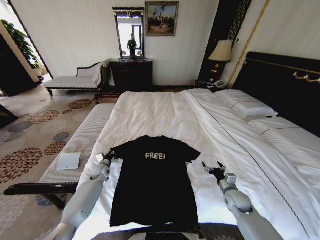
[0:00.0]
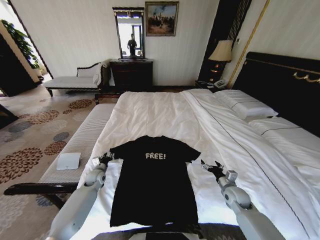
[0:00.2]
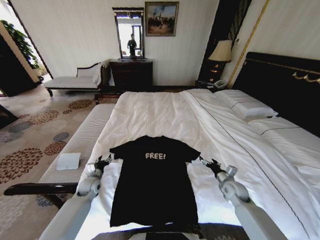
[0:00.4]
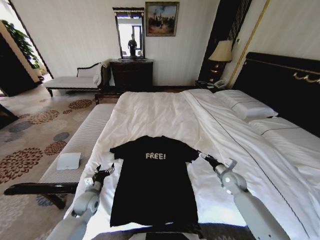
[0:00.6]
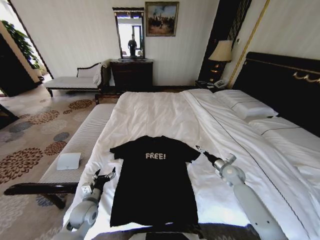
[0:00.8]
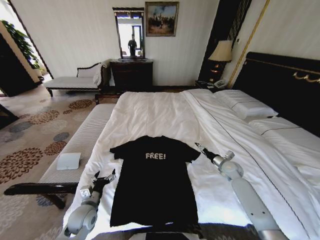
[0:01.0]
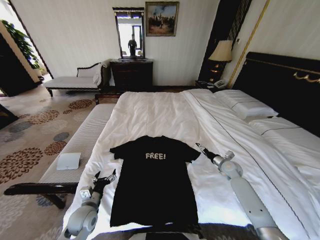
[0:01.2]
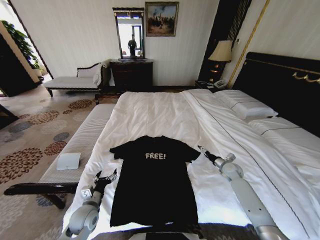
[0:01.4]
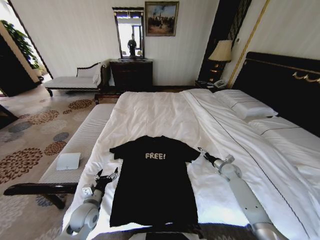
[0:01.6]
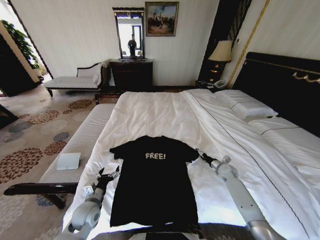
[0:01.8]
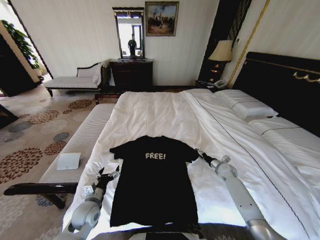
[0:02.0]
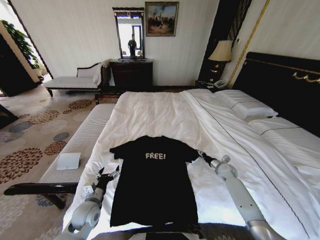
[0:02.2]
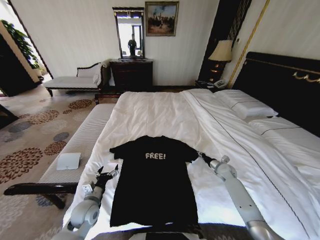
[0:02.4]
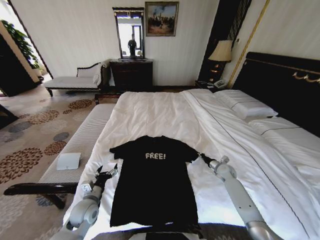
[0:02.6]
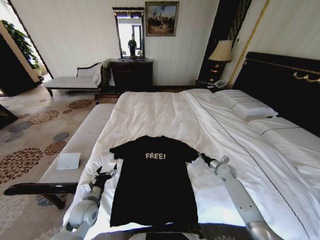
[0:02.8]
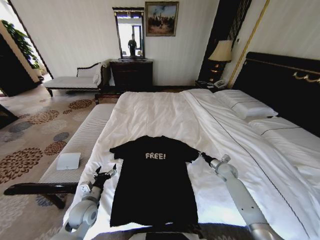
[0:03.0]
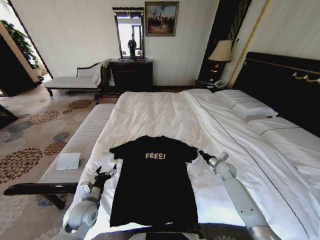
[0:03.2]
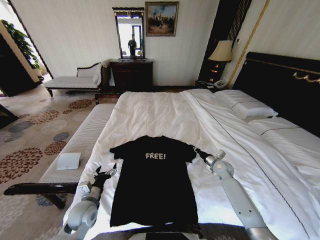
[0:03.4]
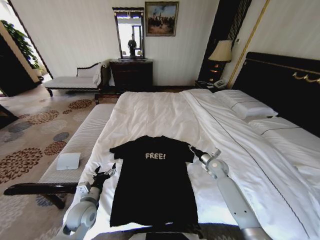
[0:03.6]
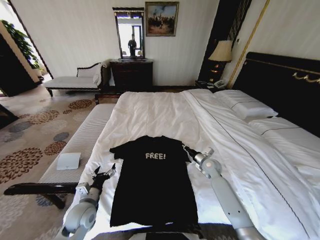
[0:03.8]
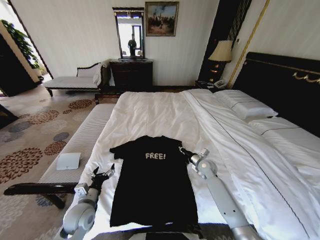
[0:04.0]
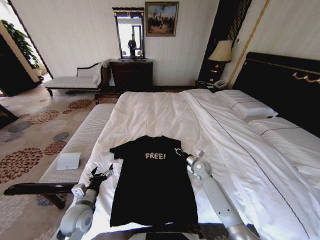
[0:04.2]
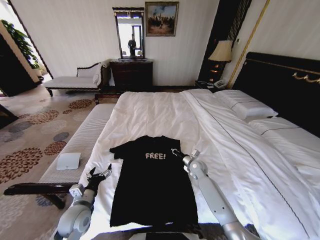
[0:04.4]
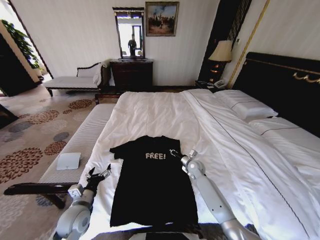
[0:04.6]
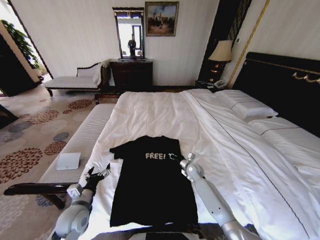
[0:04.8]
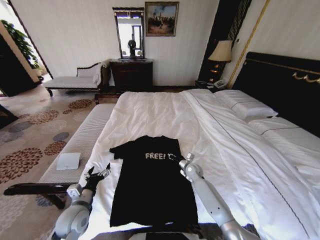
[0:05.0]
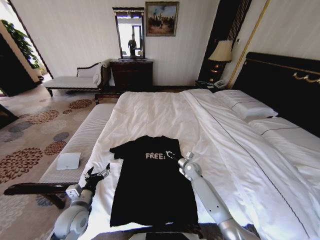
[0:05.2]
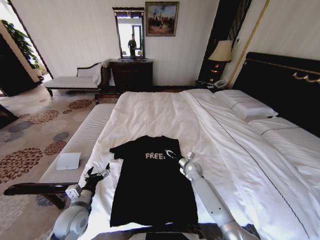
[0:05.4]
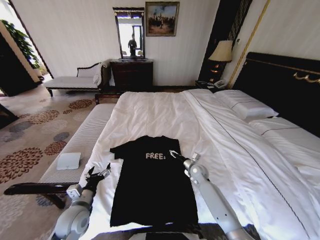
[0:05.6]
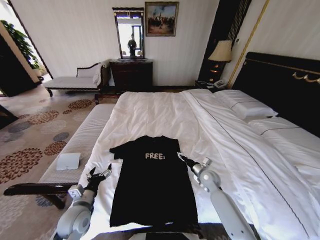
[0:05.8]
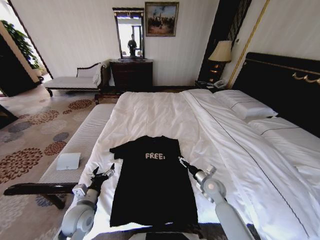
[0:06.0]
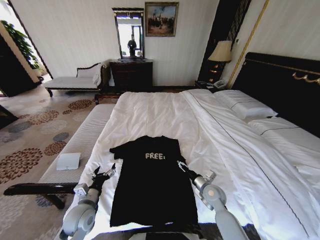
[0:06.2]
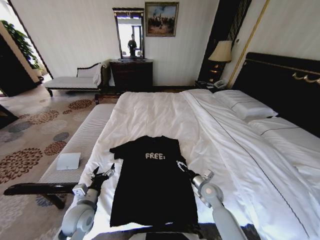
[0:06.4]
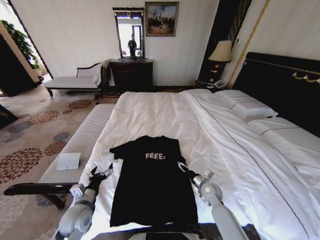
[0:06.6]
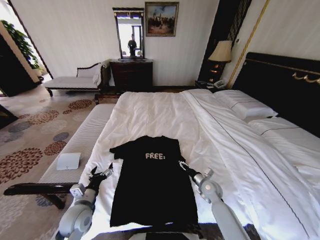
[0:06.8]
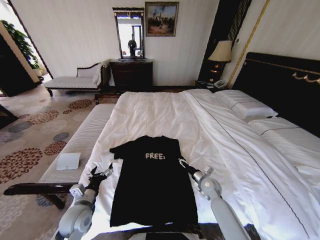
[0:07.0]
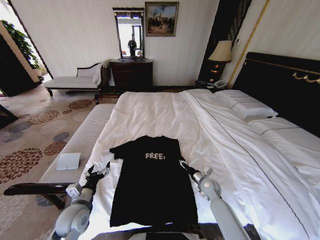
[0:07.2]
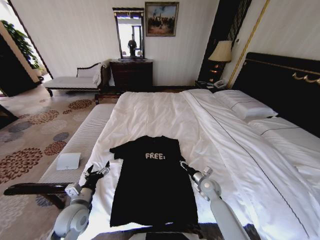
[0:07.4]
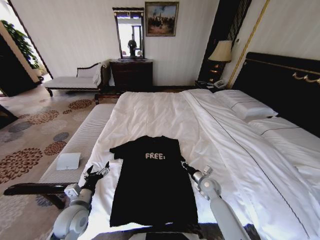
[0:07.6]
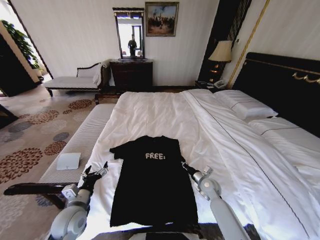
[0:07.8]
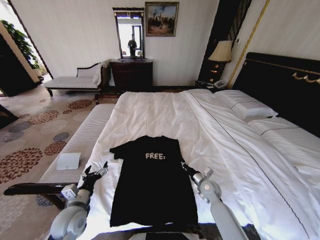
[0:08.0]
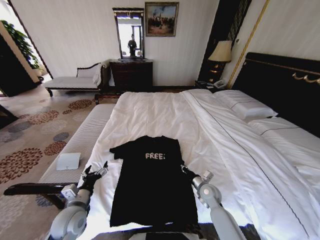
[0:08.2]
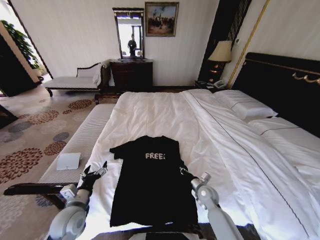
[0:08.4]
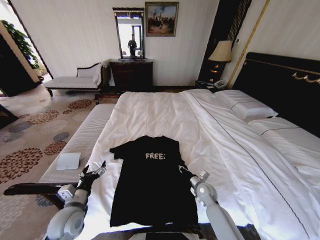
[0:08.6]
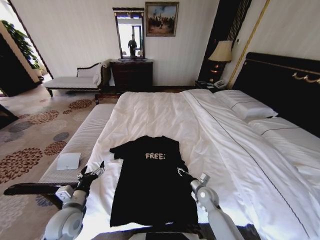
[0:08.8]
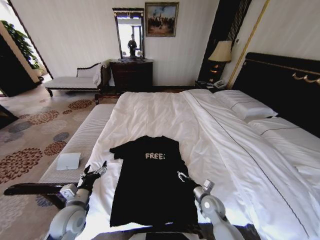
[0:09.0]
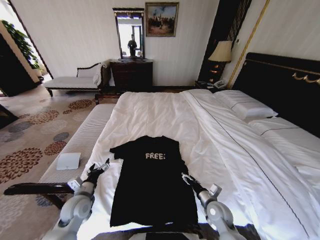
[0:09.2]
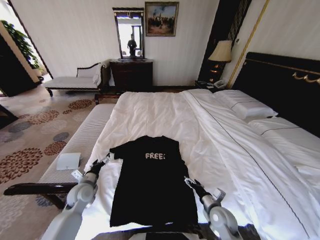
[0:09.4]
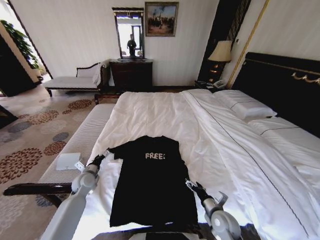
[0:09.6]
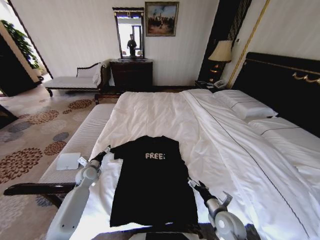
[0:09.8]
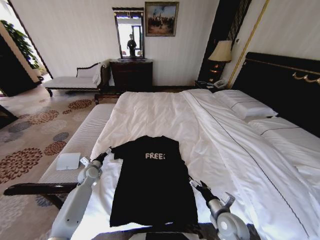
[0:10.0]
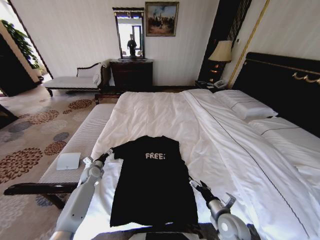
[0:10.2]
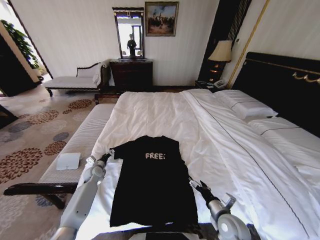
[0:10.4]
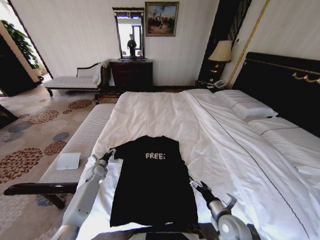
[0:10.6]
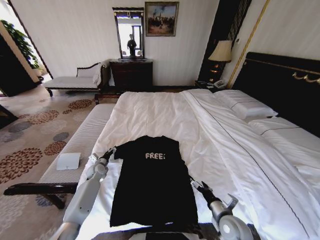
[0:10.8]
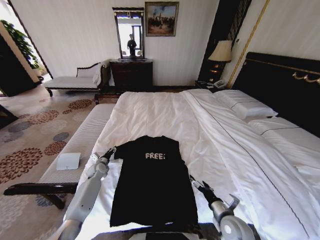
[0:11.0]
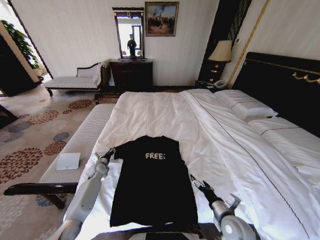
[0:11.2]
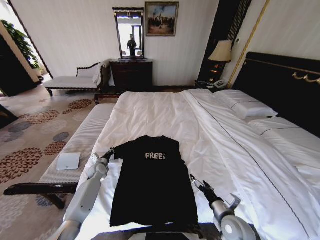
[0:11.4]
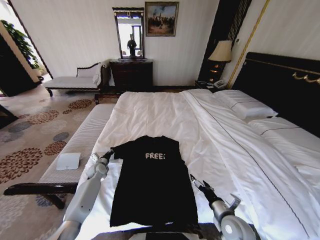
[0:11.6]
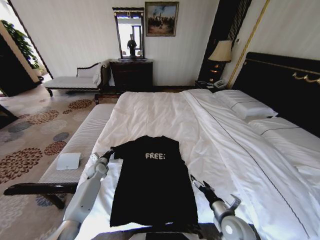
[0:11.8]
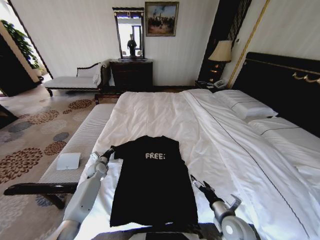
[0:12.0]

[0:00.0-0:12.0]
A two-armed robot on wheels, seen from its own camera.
Task of the whole recording: Fold the clothes on the bed.
0:00.0 to 0:01.6: The right gripper shifts about 15 cm forward and to the right; the left gripper travels backward by roughly 20 cm, and opens.
0:01.6 to 0:03.0: The right gripper closes.
0:03.0 to 0:04.4: The right gripper goes approximately 15 cm to the left.
0:04.4 to 0:06.0: The right gripper goes approximately 10 cm backward, and opens its fingers.
0:06.0 to 0:07.6: The right gripper closes.
0:07.6 to 0:09.0: The right gripper goes roughly 10 cm backward, and opens up.
0:09.0 to 0:10.4: The right gripper goes approximately 10 cm backward and upward, and opens up. The left gripper moves forward and downward, approximately 25 cm.
0:10.4 to 0:12.0: The left gripper closes its fingers.

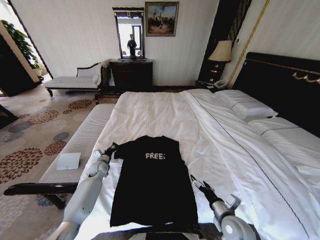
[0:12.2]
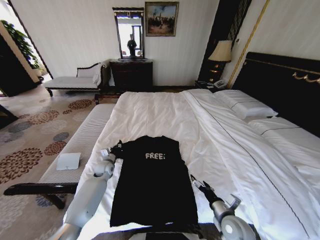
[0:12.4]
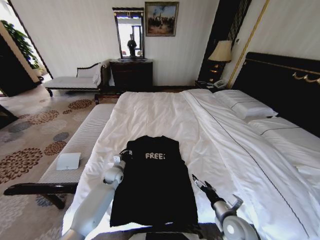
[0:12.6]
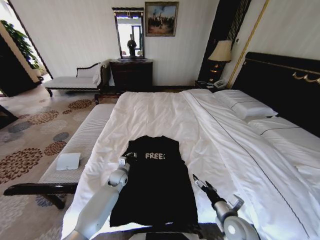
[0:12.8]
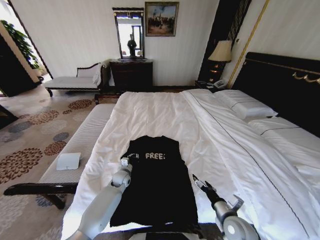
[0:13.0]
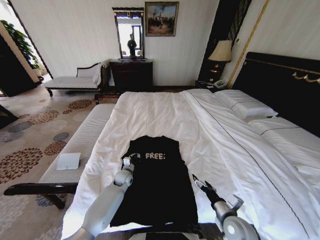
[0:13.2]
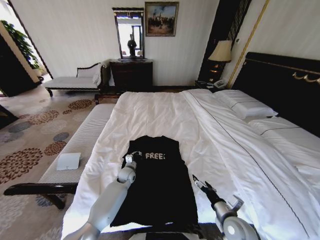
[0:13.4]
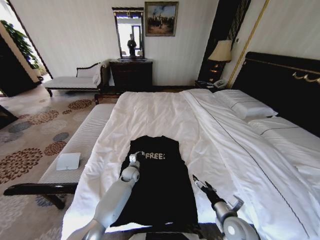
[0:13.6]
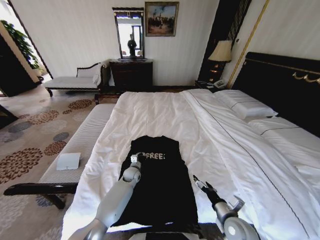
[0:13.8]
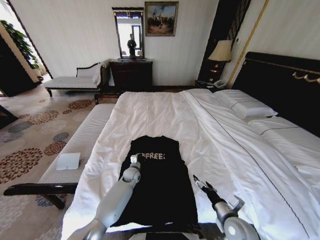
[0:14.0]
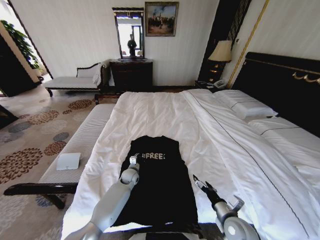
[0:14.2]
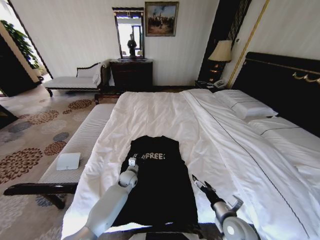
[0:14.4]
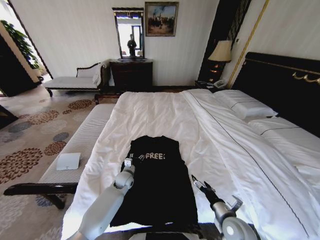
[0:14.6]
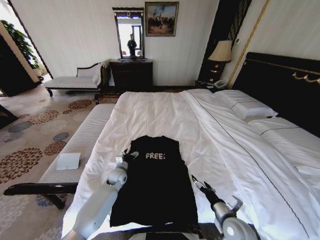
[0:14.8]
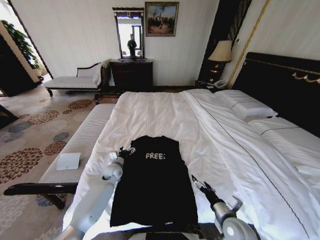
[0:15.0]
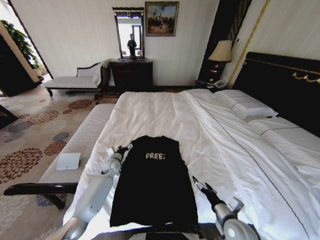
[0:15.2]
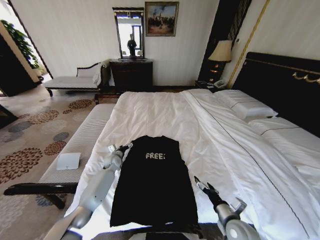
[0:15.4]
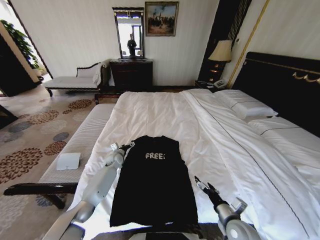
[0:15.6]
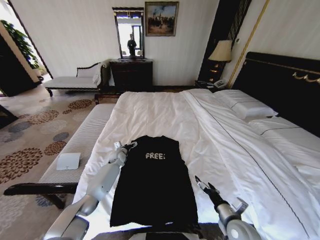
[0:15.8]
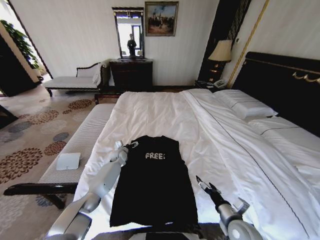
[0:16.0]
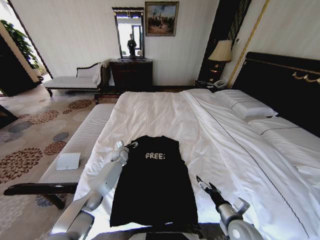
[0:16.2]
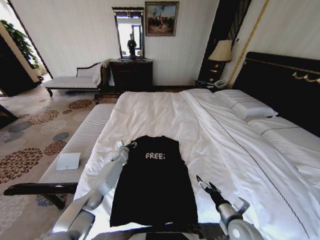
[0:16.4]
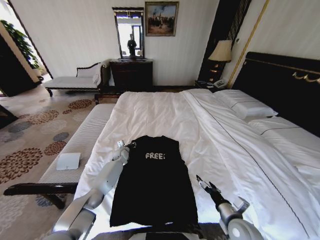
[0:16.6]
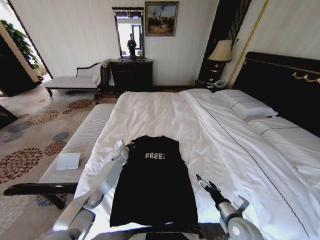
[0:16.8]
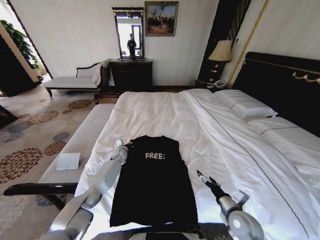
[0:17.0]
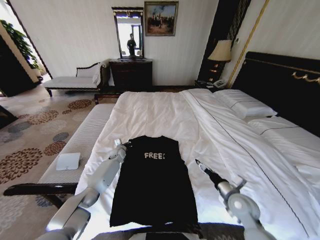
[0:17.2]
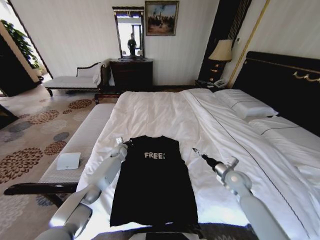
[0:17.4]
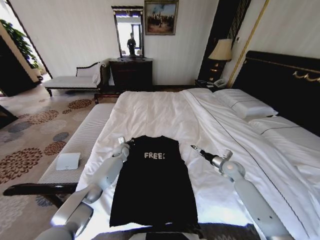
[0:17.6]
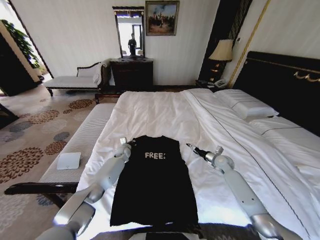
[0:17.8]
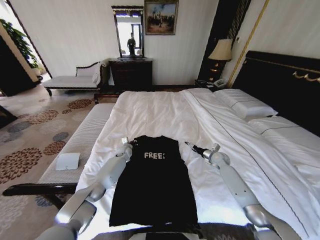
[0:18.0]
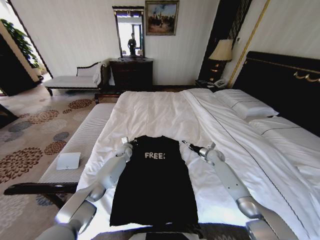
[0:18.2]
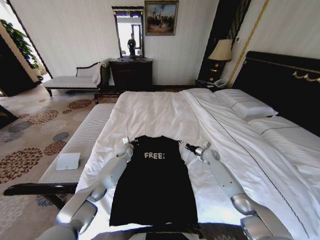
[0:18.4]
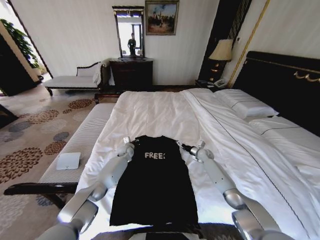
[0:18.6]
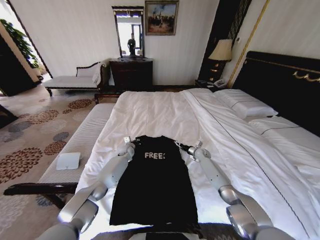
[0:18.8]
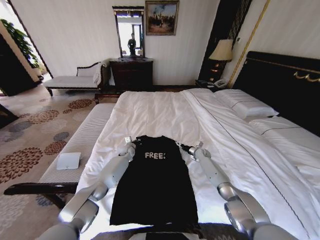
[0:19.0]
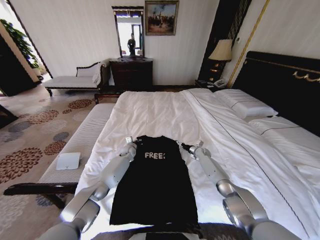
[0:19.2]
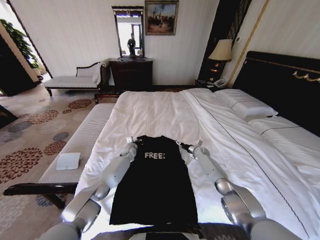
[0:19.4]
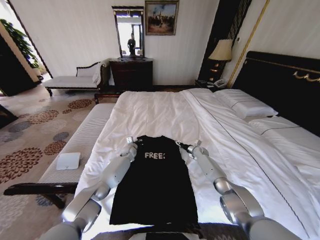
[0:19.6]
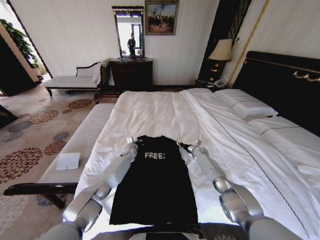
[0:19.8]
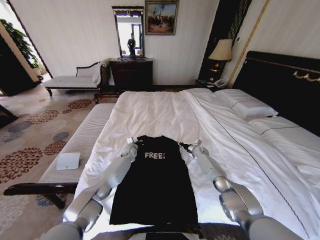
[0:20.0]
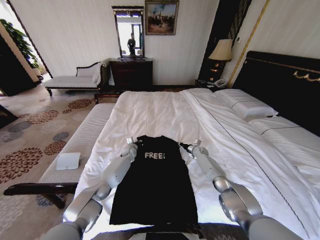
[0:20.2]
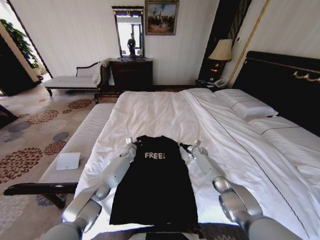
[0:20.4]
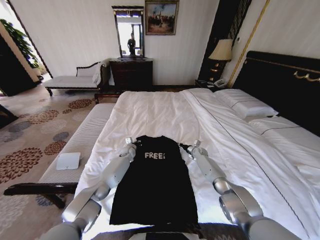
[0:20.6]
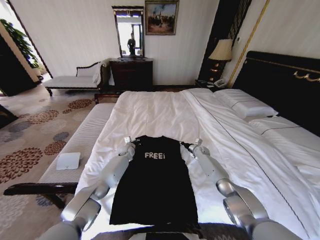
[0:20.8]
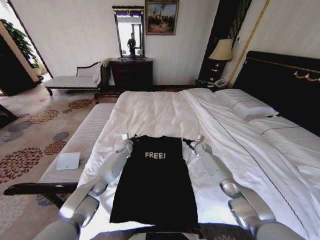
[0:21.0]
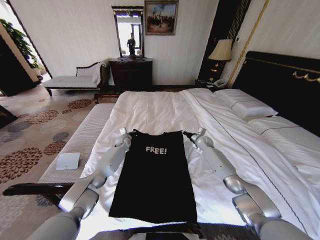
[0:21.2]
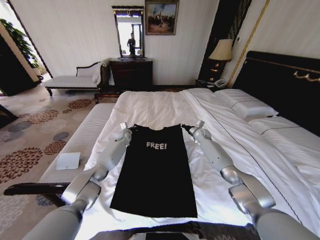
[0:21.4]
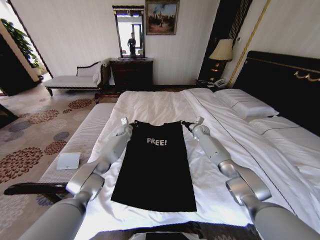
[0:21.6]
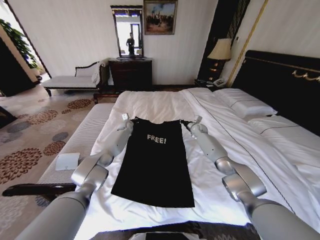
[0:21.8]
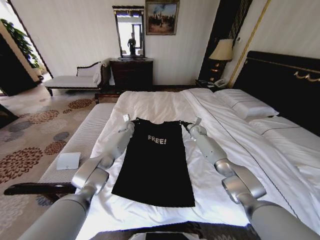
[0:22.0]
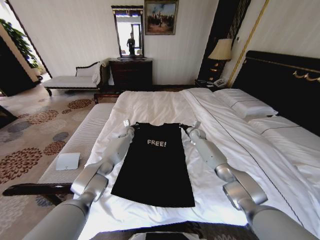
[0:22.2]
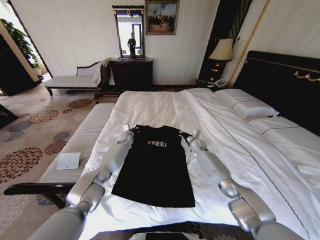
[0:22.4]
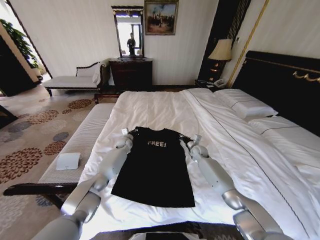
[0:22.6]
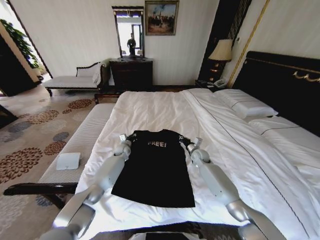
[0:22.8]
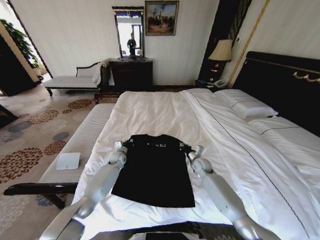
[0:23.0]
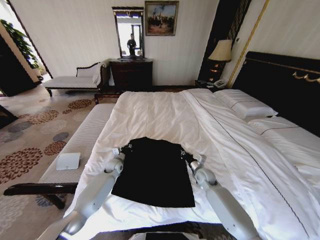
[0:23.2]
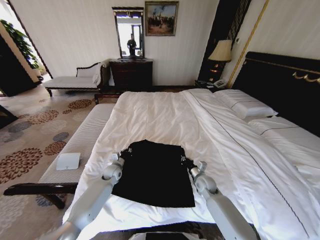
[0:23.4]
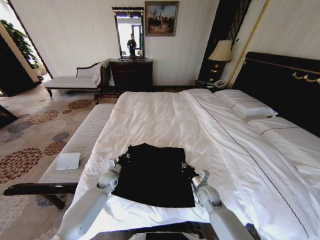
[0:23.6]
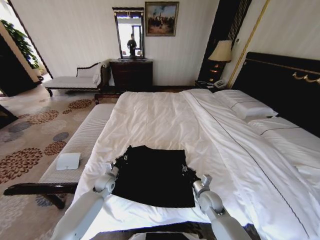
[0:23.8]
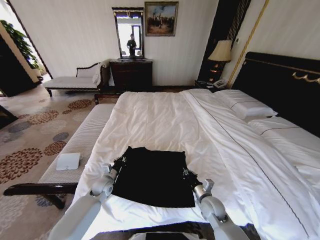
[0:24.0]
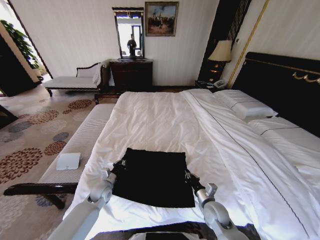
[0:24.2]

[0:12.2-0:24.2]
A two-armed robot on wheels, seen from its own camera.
Task of the whole recording: Fold the clothes on the bed.
0:12.2 to 0:13.8: The left gripper travels to the right by approximately 20 cm.
0:13.8 to 0:15.2: The left gripper moves to the left and upward, some 15 cm, and opens up.
0:15.2 to 0:16.6: The left gripper goes some 10 cm forward, and closes its fingers.
0:16.6 to 0:18.2: The right gripper is displaced forward by approximately 35 cm.
0:18.2 to 0:19.8: The right gripper shifts some 10 cm forward and to the left, and closes.
0:19.8 to 0:21.2: The left gripper ends up approximately 5 cm from where it was. Meanwhile the right gripper is displaced upward by some 10 cm, and closes its fingers.
0:21.2 to 0:22.6: The right gripper moves roughly 5 cm; the left gripper moves about 5 cm forward and comes back.
0:22.6 to 0:24.2: The grippers both shift backward by approximately 30 cm.
